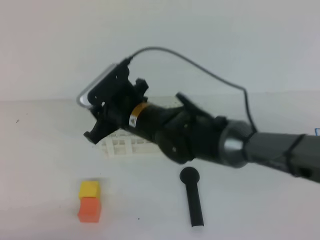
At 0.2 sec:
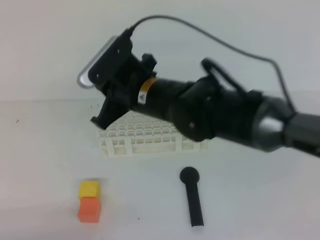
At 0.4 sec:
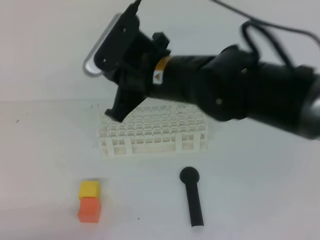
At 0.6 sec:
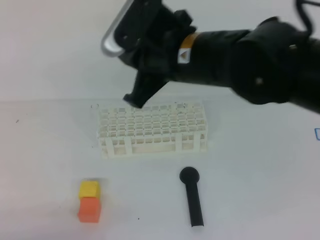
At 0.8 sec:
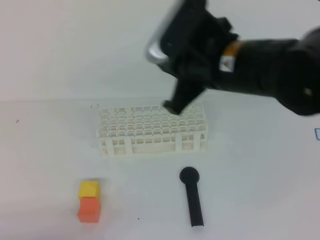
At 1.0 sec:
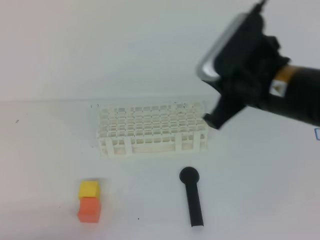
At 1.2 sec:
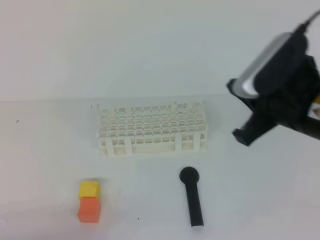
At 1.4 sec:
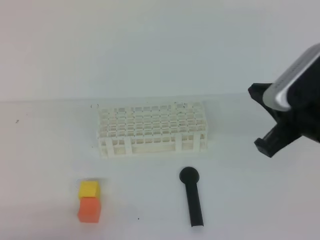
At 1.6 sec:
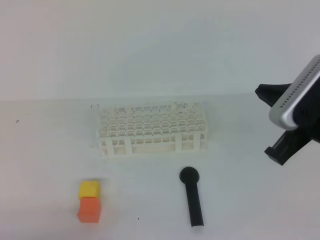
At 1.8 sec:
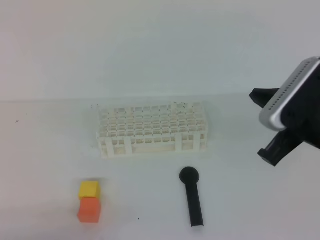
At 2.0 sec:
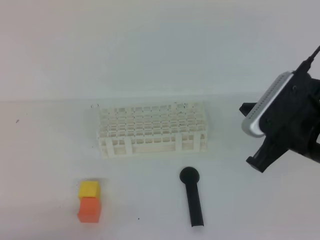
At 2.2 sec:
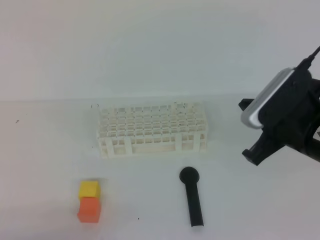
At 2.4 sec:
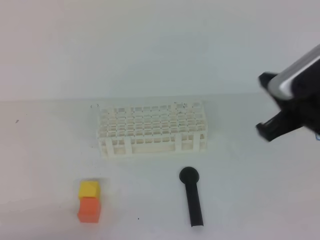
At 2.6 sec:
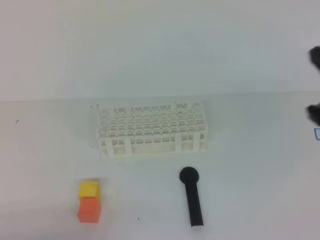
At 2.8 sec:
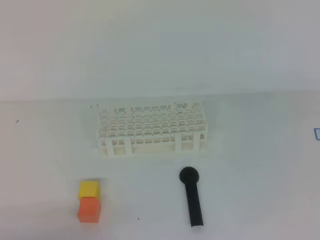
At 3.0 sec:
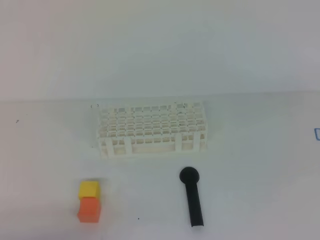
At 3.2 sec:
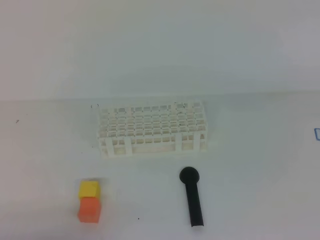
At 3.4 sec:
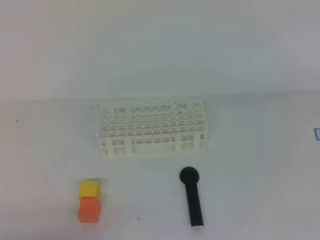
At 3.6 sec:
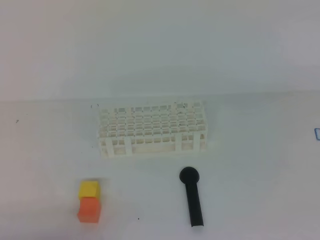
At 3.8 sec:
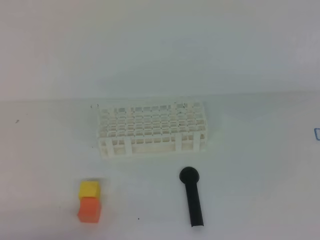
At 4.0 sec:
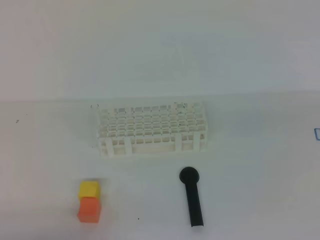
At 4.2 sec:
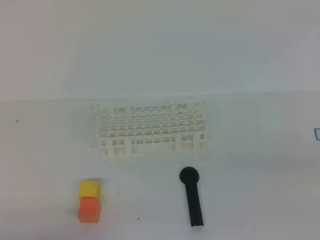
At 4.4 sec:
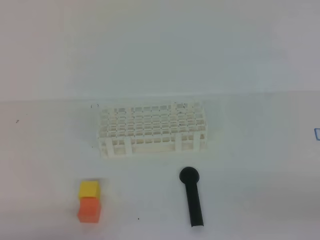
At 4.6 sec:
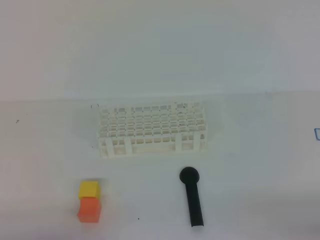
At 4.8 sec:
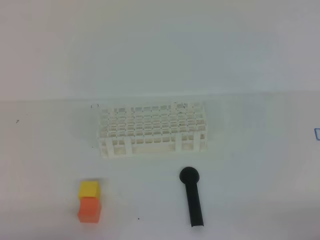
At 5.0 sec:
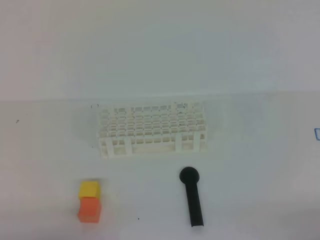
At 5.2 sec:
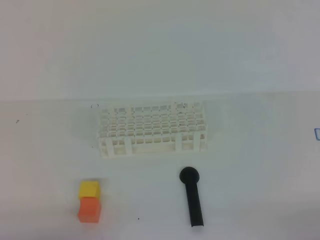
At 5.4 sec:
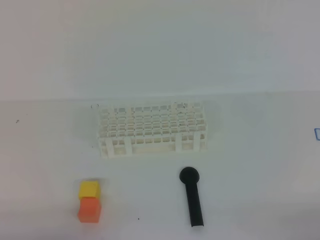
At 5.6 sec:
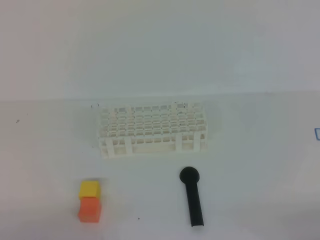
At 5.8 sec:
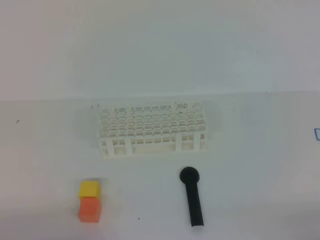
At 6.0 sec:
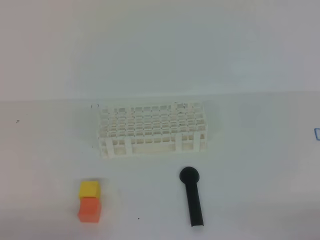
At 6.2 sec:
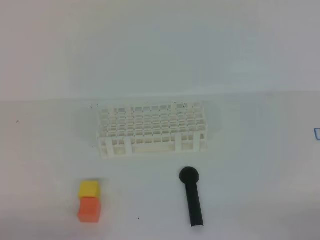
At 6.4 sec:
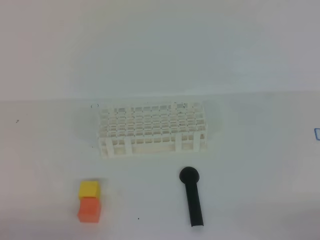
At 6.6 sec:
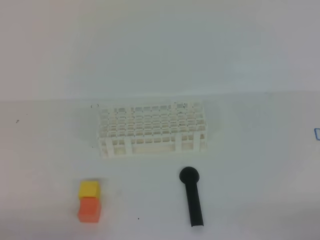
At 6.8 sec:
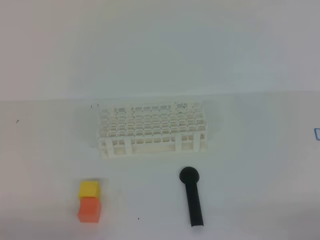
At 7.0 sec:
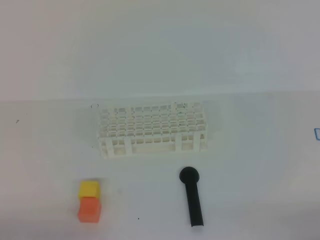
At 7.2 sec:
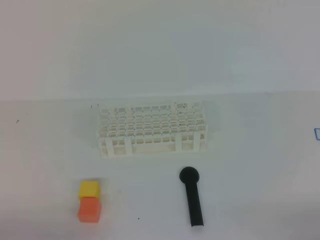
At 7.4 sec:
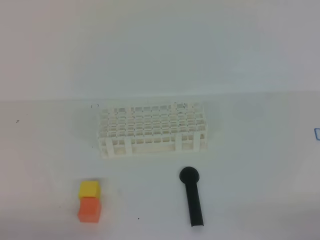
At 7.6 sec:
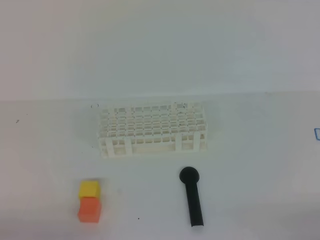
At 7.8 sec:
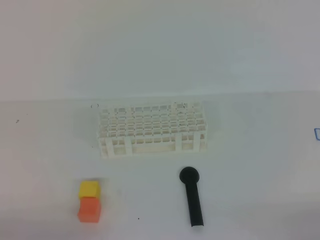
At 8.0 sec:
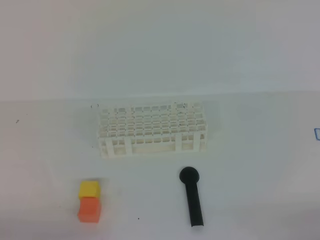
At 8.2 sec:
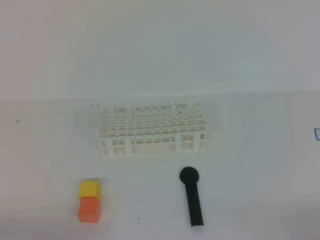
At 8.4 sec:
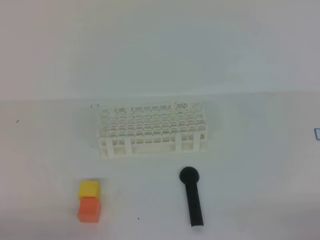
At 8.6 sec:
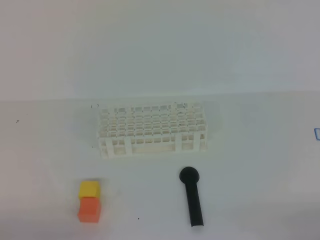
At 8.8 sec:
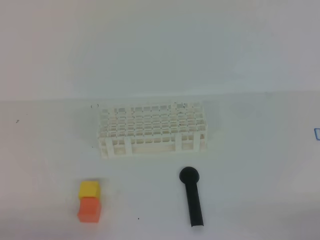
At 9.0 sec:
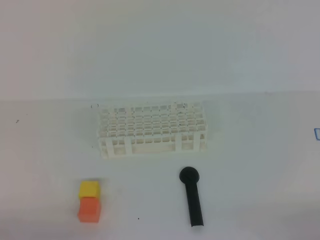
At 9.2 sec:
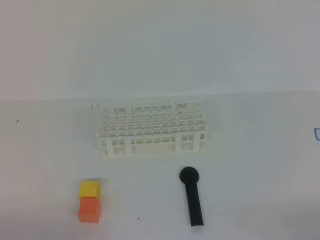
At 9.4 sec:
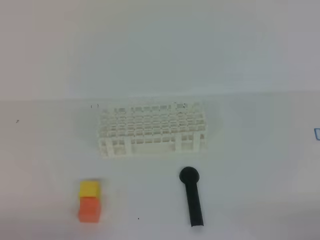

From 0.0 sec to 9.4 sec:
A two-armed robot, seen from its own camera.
From 0.0 sec to 1.6 sec: The right gripper goes approximately 25 cm to the right and backward, and closes.
From 1.6 sec to 3.2 sec: The right gripper heads to the right, upward and backward, covering roughly 15 cm.
From 6.2 sec to 9.4 sec: The two grippers keep their place.
